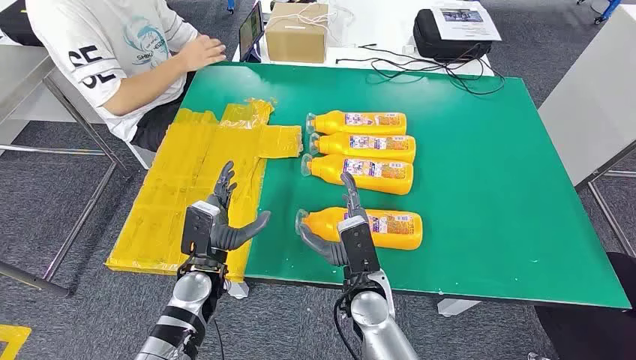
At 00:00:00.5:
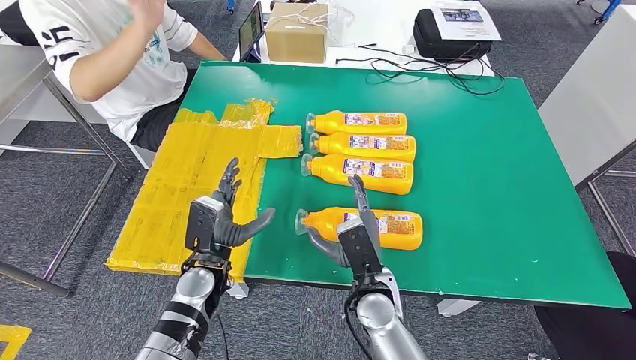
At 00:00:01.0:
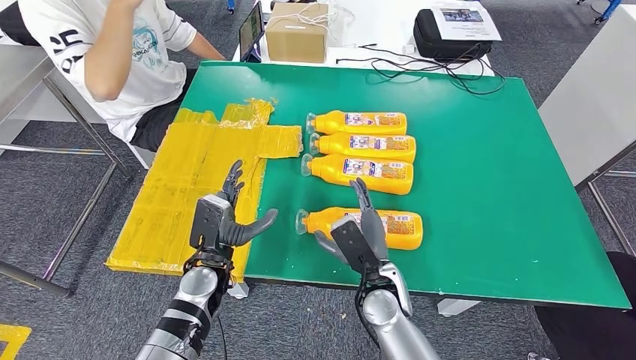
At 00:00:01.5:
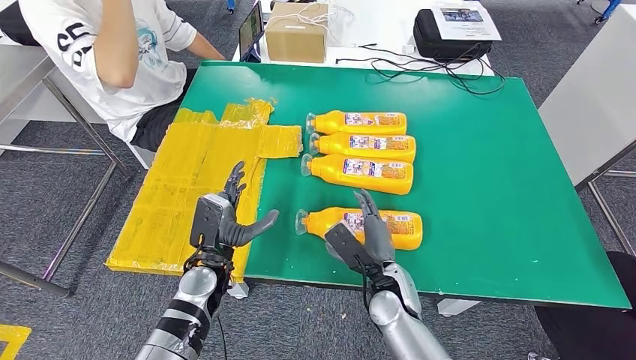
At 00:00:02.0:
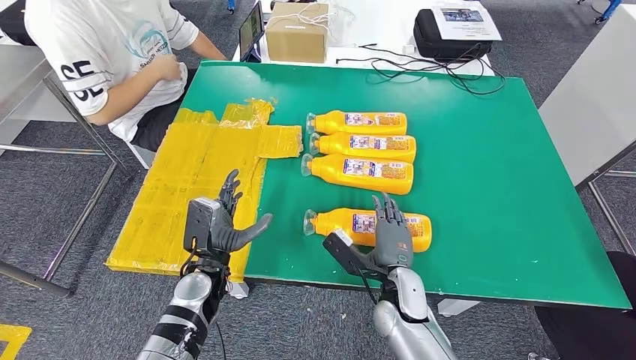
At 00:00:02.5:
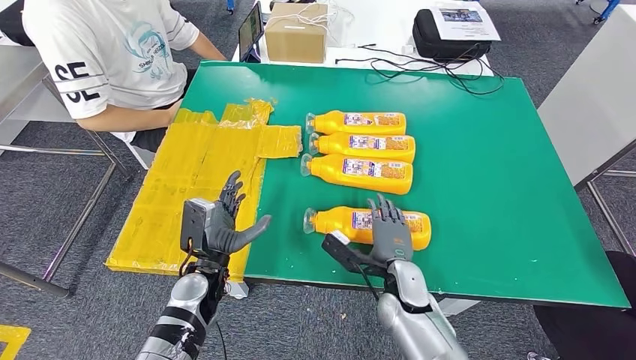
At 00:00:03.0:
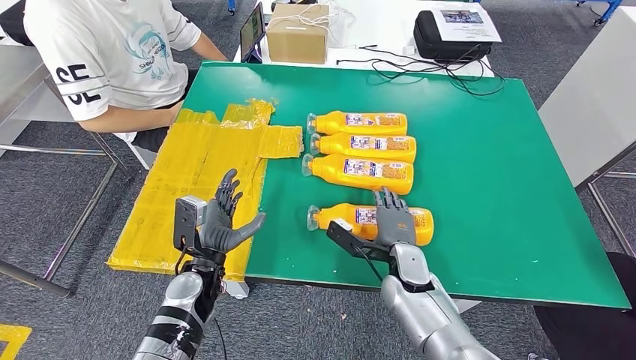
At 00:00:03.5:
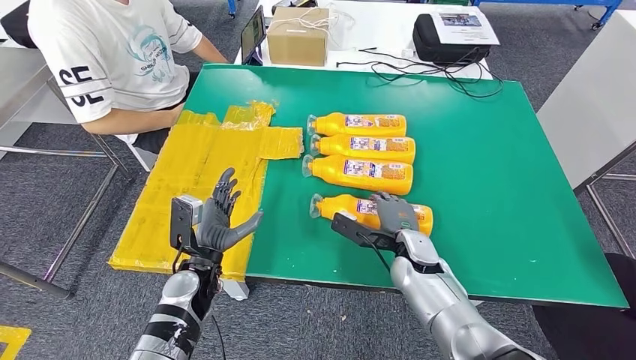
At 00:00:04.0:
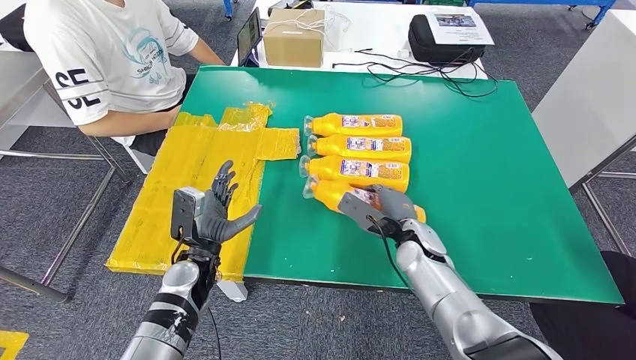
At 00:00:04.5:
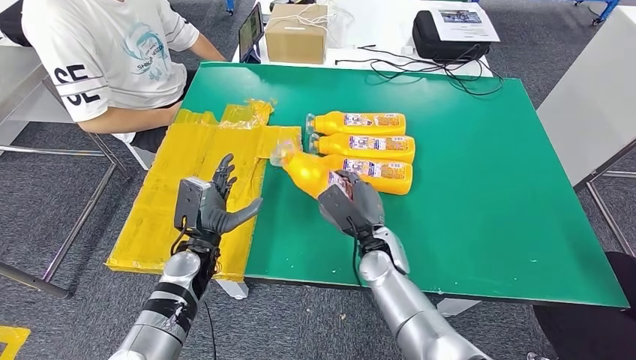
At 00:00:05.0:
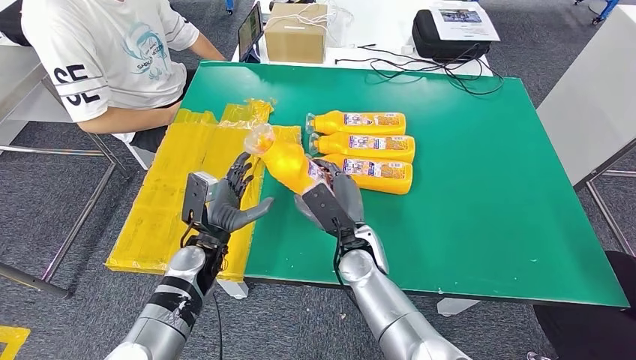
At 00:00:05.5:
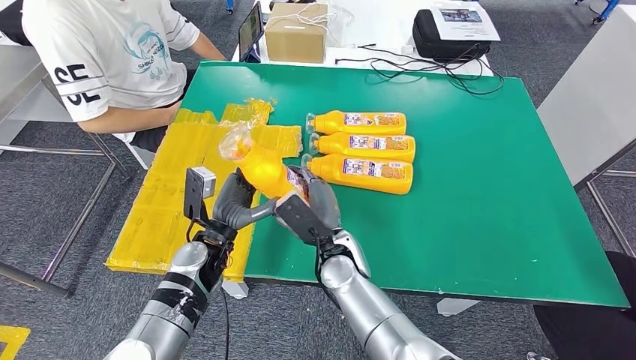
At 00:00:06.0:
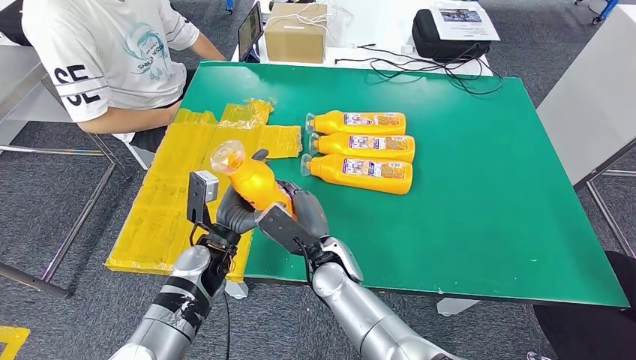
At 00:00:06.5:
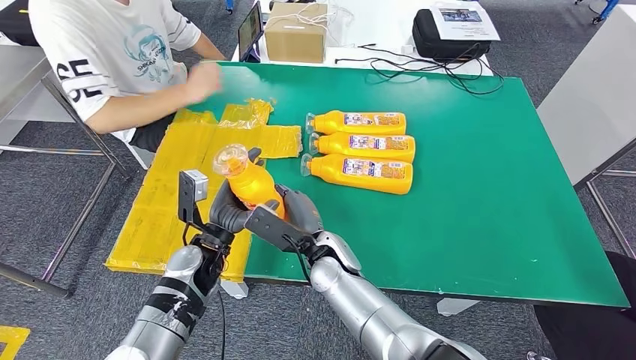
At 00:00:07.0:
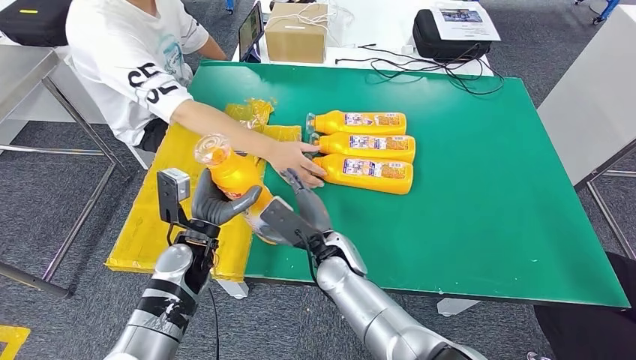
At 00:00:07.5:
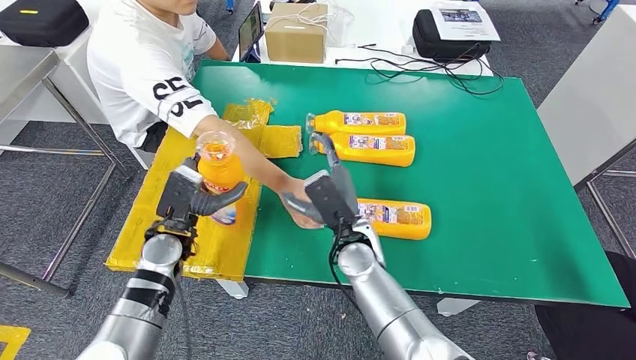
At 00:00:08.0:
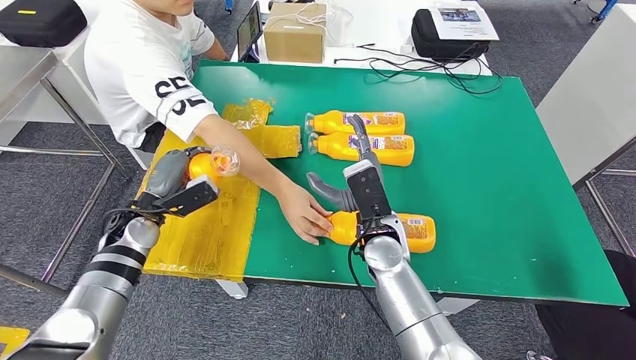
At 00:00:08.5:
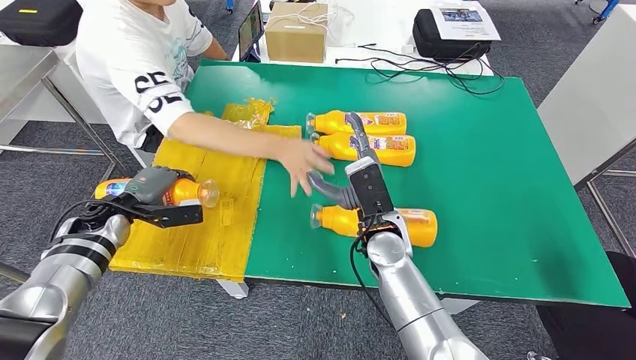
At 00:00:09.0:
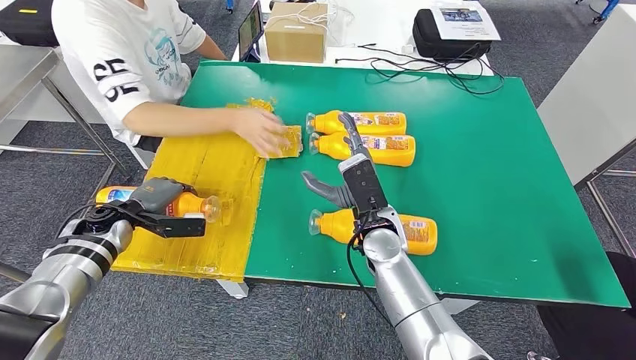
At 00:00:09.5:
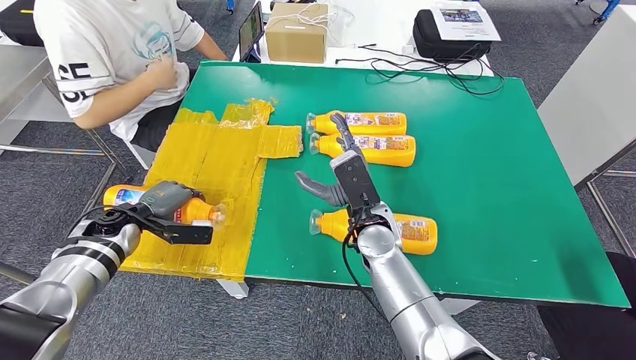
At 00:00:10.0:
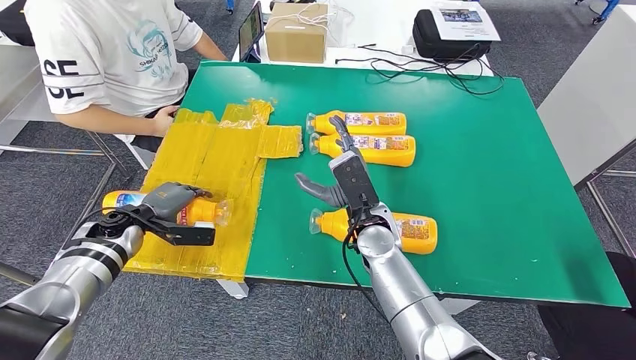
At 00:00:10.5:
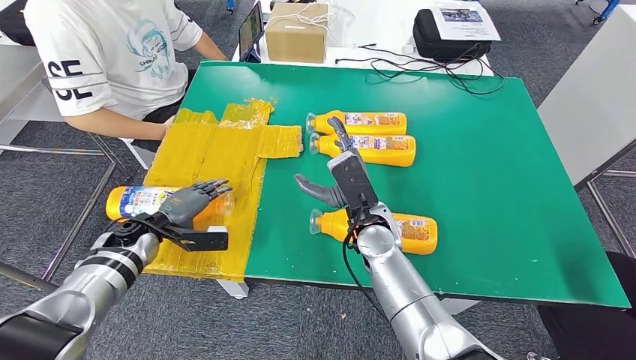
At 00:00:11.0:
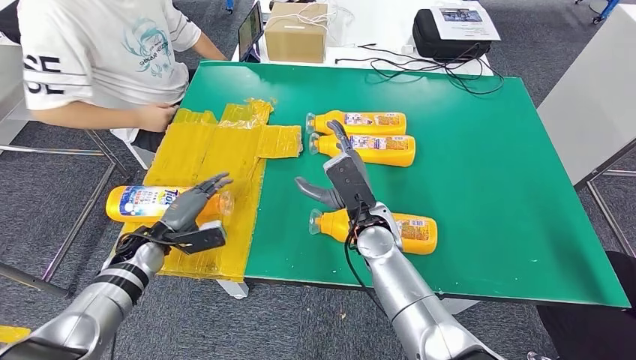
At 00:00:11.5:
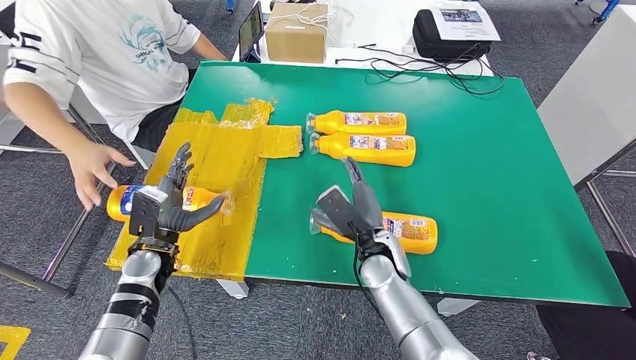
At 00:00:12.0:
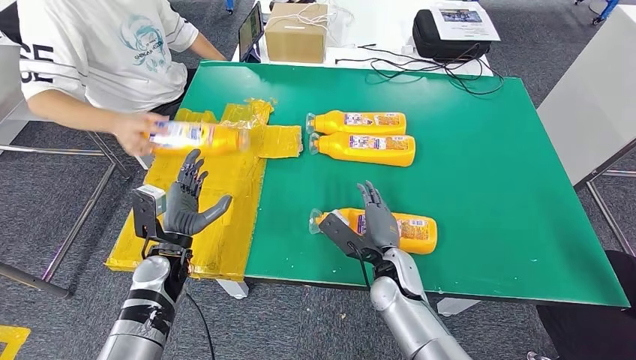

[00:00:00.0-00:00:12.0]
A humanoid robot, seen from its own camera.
Step, 00:00:00.0 to 00:00:05.5: Take the fast-moving consumer goods bottle from the table.
Step, 00:00:06.0 to 00:00:08.5: Flip the fast-moving consumer goods bottle to the front side.

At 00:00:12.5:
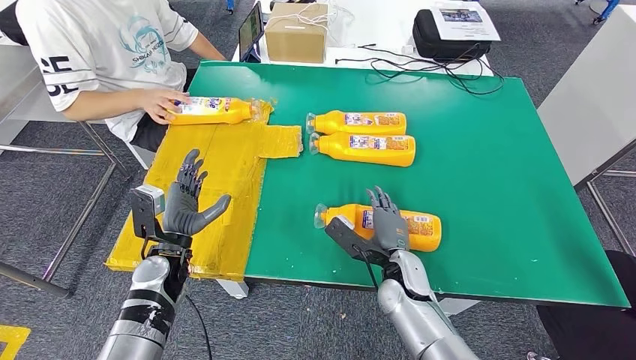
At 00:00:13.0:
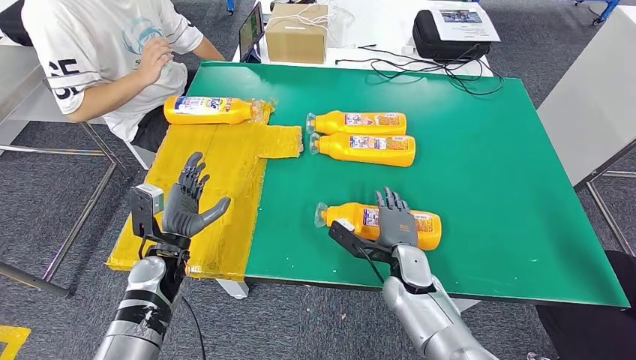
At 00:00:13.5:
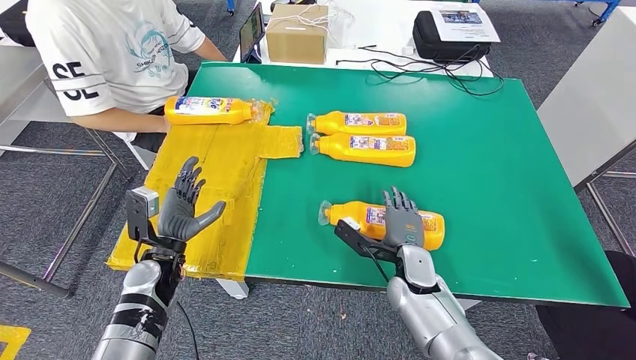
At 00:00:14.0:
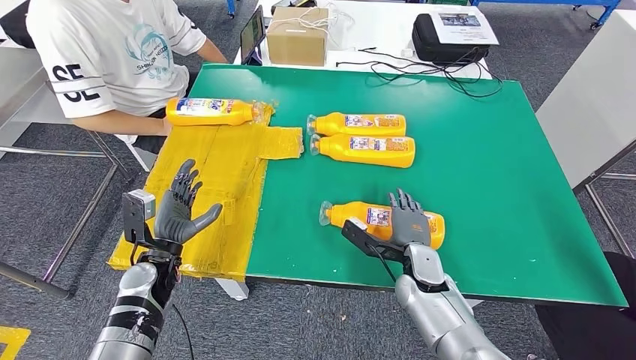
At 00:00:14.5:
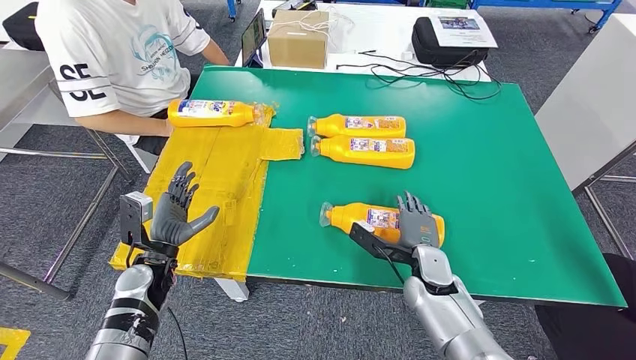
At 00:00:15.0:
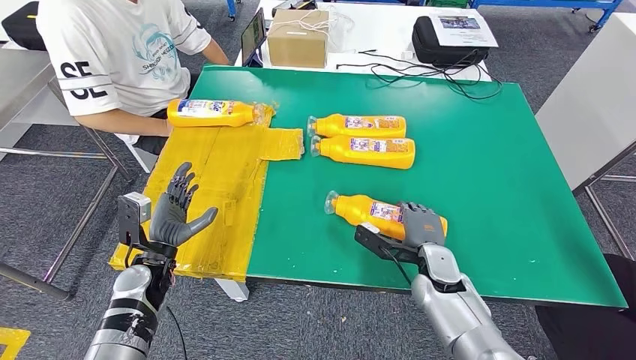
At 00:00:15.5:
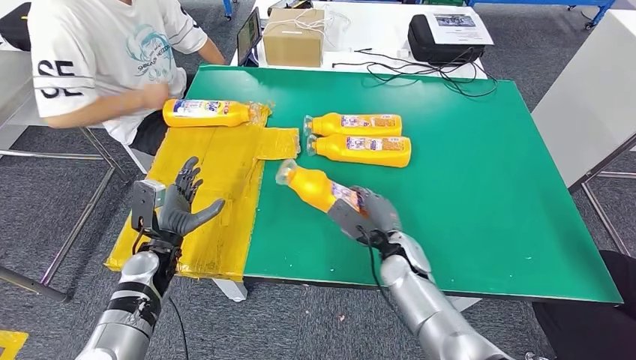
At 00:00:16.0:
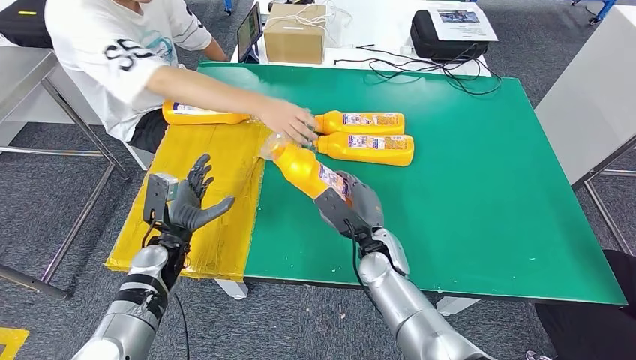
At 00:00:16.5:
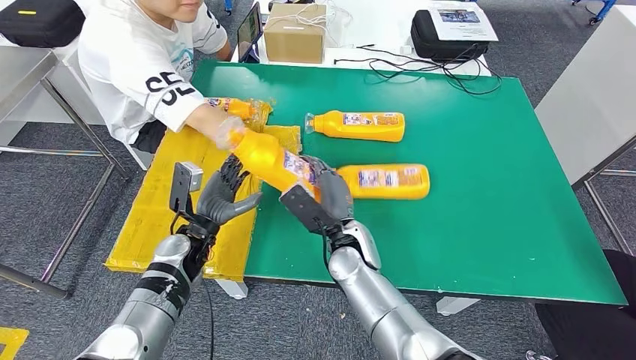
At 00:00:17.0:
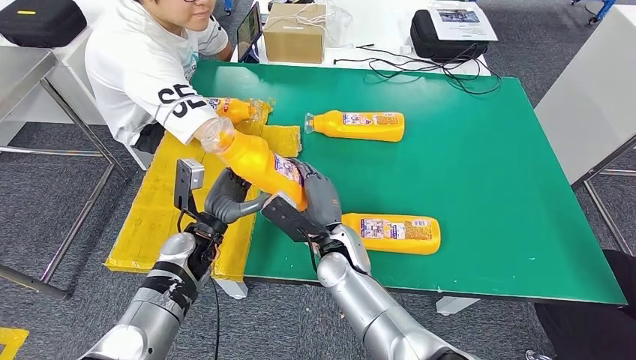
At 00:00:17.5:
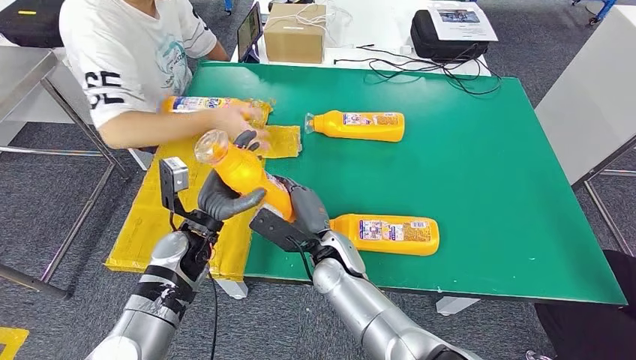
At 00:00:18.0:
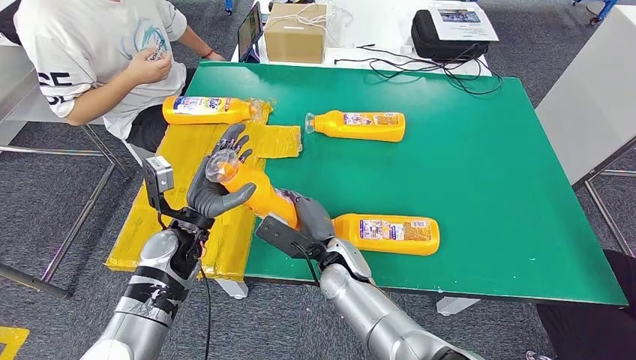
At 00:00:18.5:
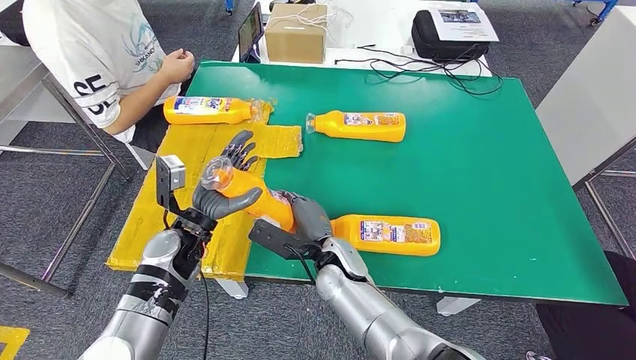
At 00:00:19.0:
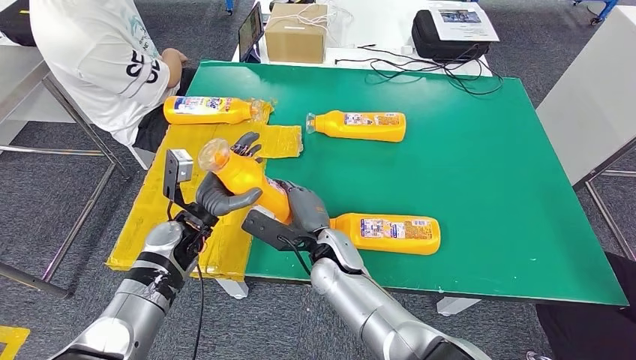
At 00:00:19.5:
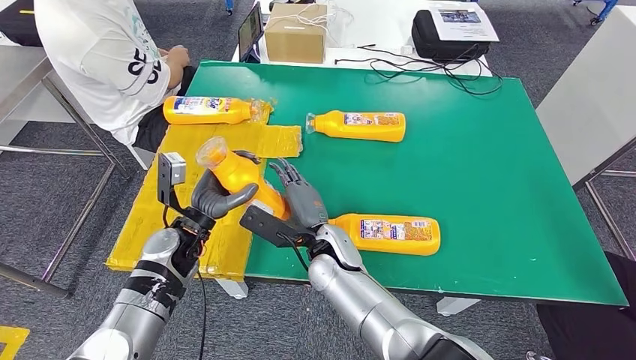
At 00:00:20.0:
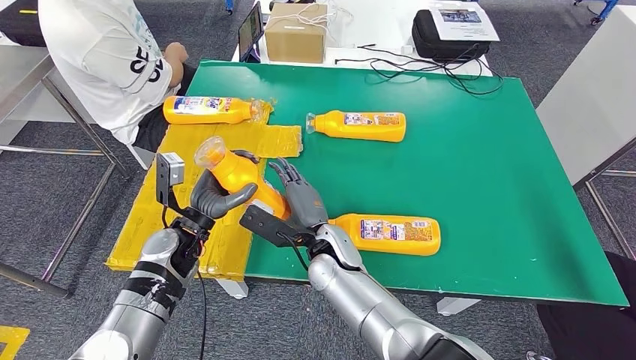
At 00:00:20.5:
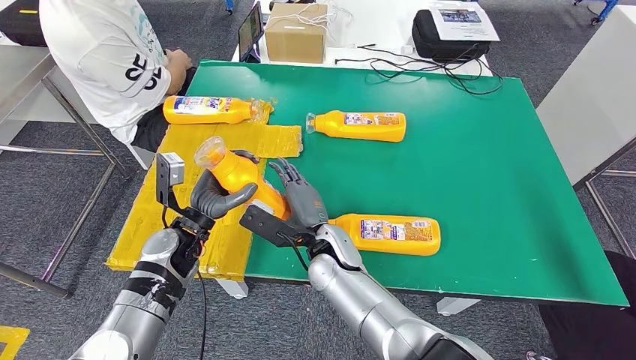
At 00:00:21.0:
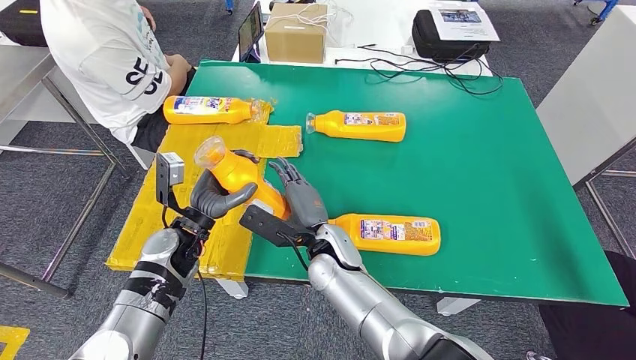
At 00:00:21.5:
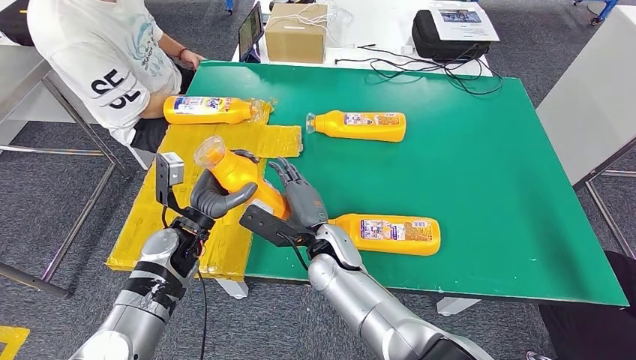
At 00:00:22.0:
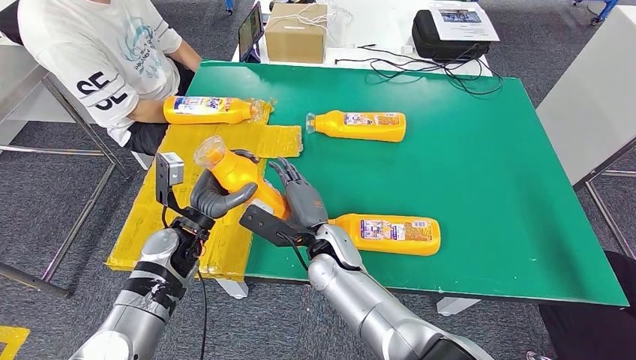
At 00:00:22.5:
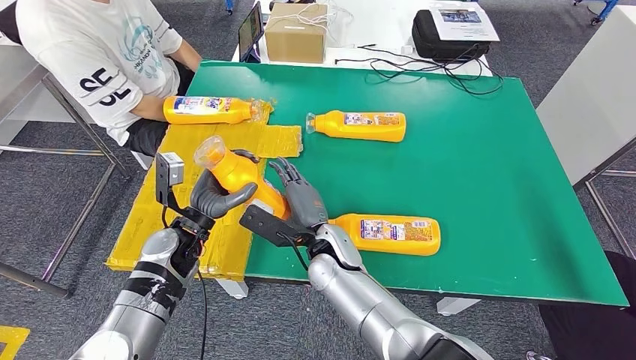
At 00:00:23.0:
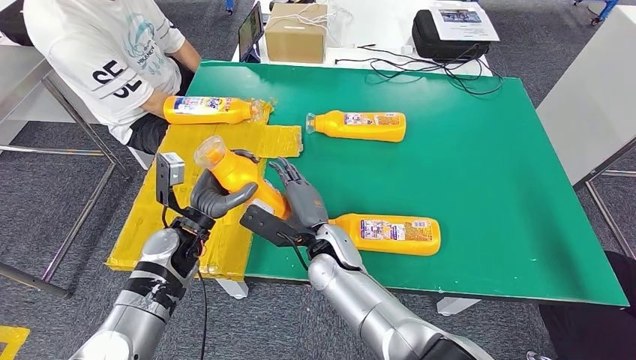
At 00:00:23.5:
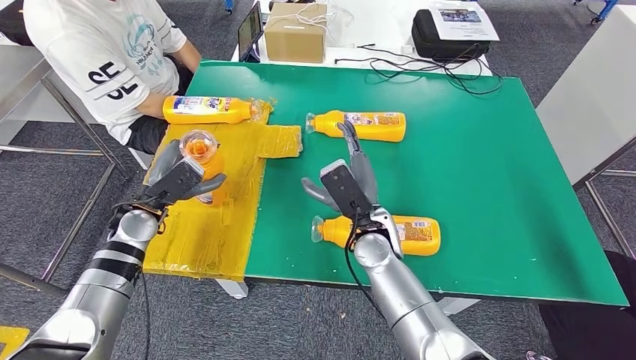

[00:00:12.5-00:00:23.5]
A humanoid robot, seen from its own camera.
Step, 00:00:12.5 to 00:00:18.0: Pick up the fast-moving consumer goods bottle from the table.
00:00:18.0 to 00:00:20.0: There are only small adjustments of the hands.
00:00:20.0 to 00:00:21.5: The two hands keep their place.
